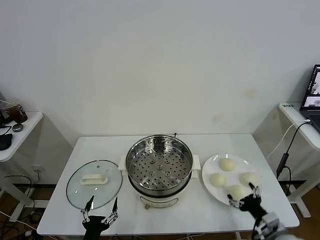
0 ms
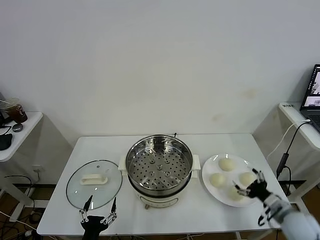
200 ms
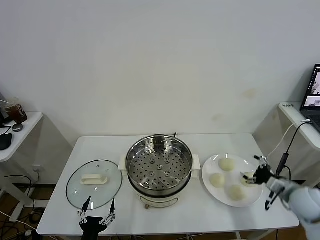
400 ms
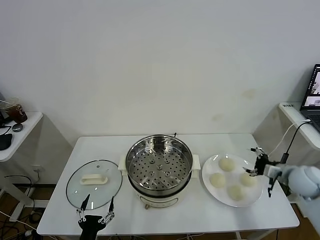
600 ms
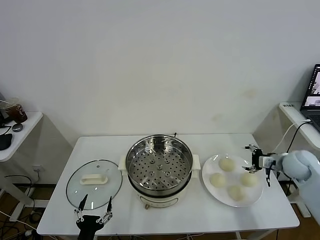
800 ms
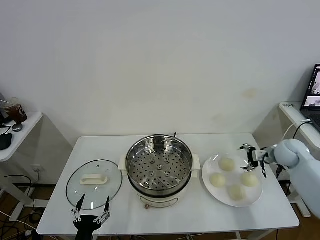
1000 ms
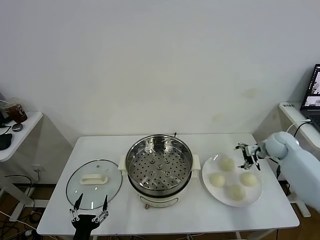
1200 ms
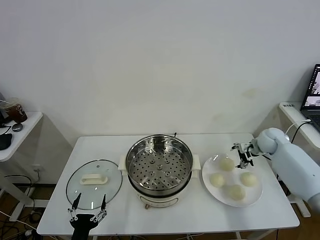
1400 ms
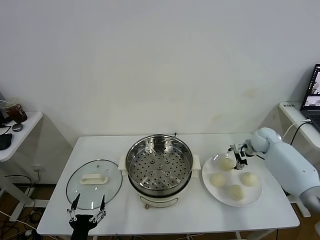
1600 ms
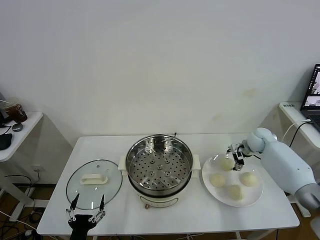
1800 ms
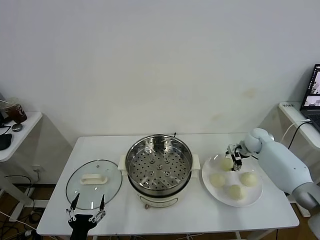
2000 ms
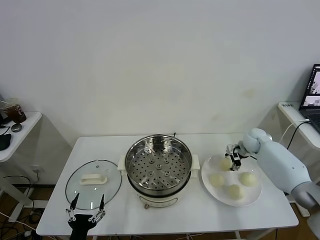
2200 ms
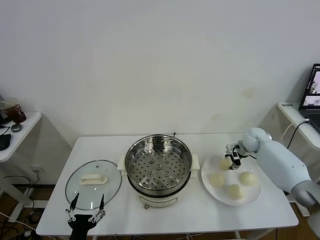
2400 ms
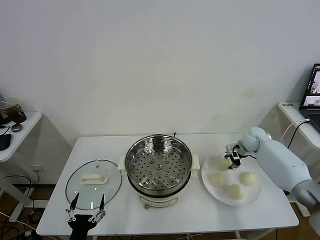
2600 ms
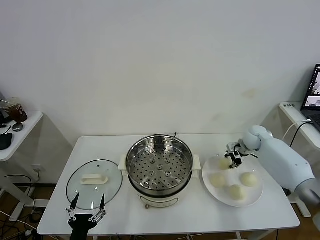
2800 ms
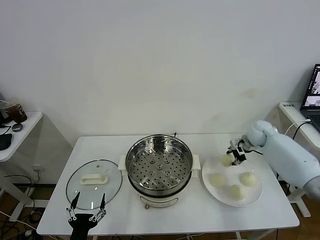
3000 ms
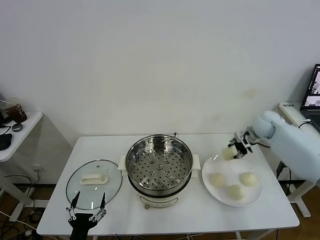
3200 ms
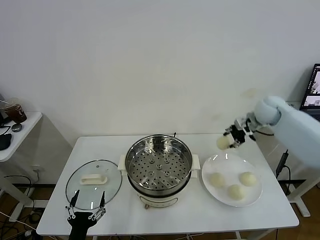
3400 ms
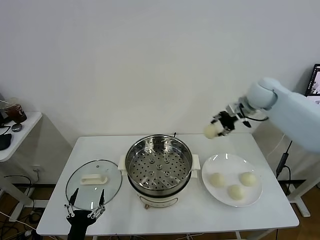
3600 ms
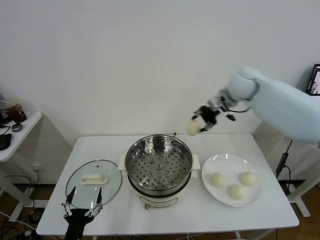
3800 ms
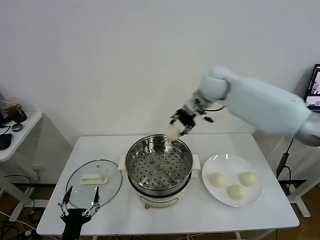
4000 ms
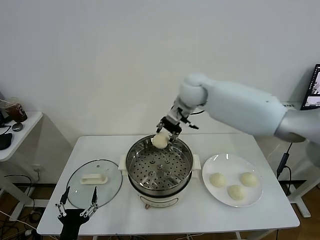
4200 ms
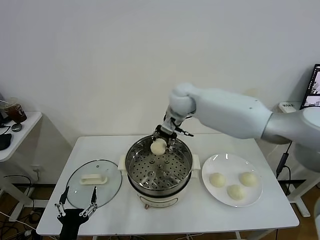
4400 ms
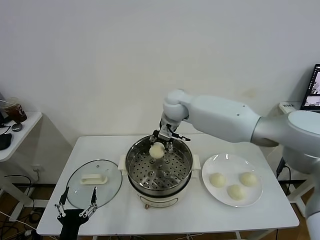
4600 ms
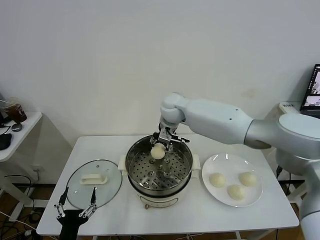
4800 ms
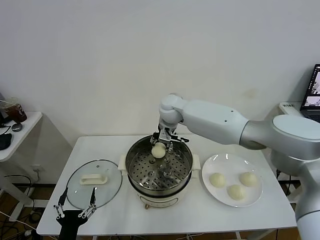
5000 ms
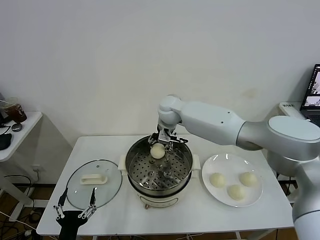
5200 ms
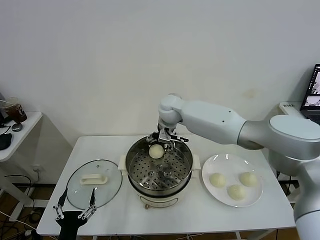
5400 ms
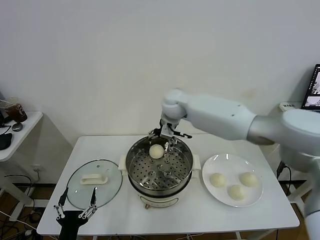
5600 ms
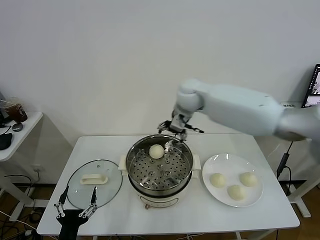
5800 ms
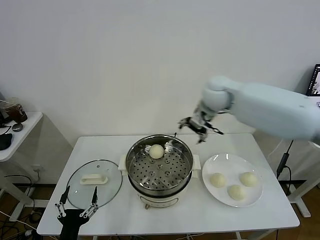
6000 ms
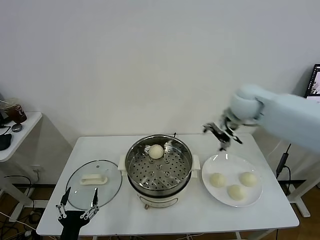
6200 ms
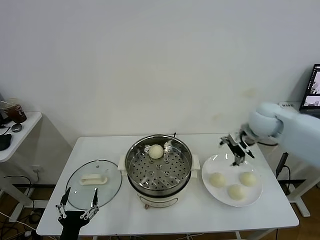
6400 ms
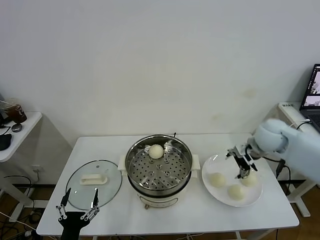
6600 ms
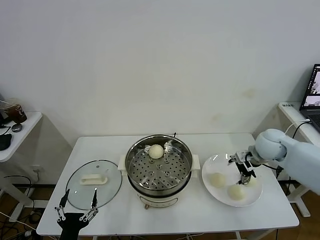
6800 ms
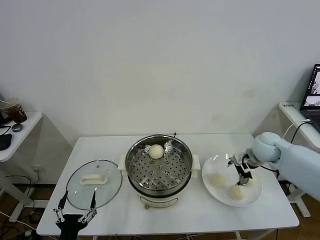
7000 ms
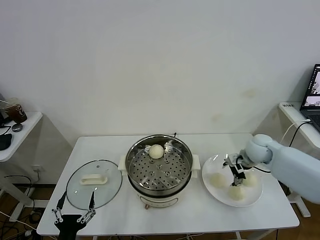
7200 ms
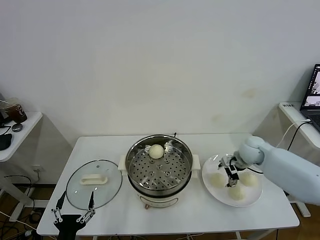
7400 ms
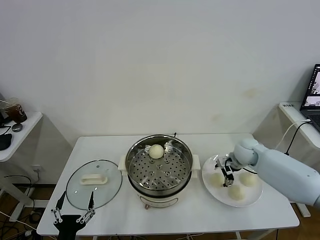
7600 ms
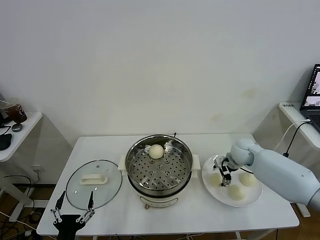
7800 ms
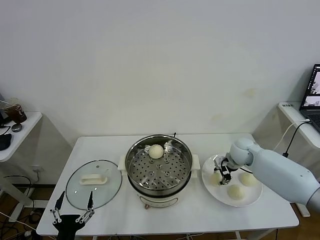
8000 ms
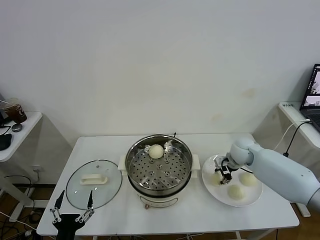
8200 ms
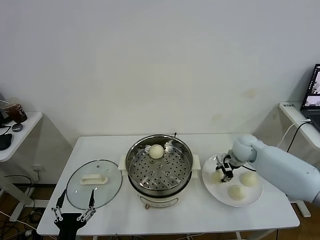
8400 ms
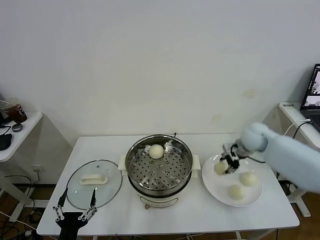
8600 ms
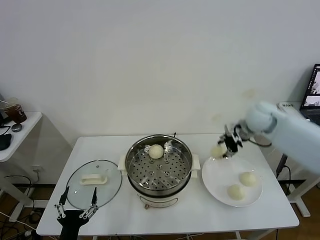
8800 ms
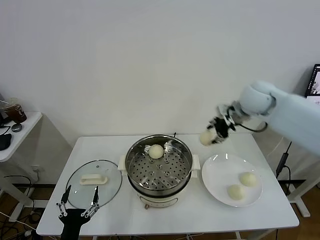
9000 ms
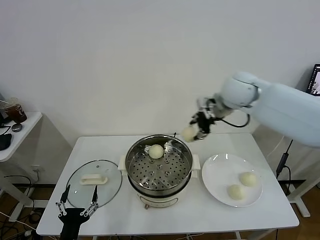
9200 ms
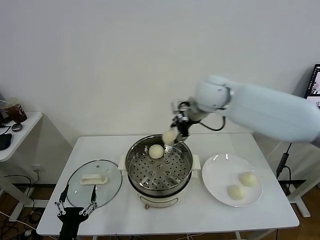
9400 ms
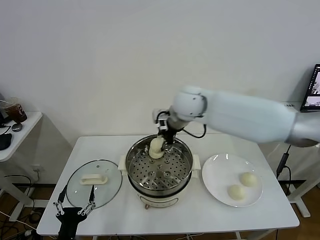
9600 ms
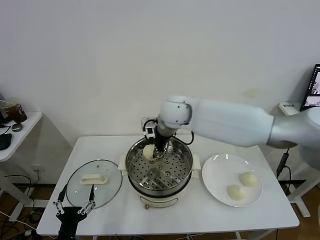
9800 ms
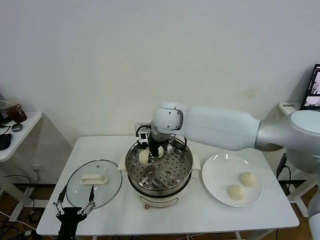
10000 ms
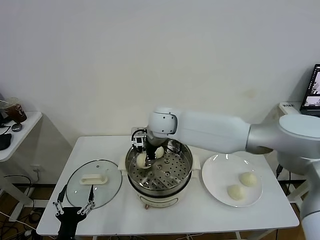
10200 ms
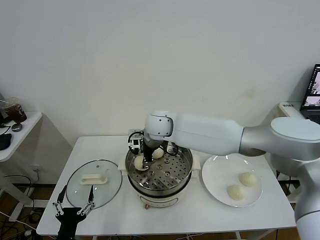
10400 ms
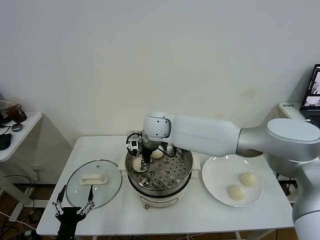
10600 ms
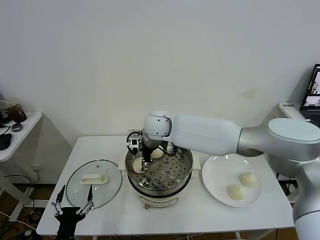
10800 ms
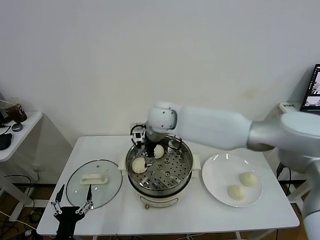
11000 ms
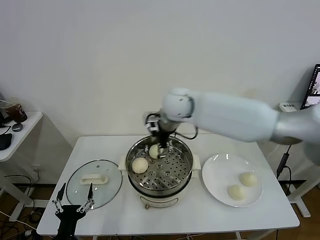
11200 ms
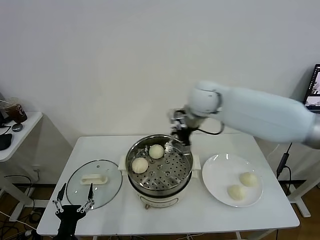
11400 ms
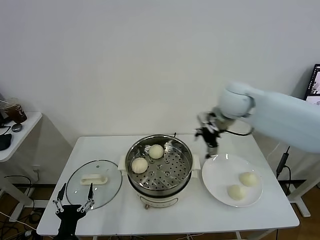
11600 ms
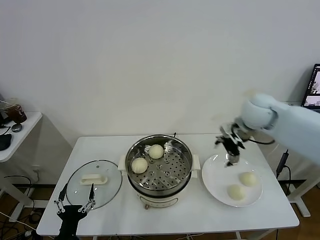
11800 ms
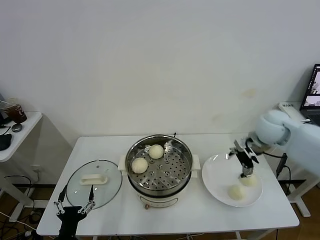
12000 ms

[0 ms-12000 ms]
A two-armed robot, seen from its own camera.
Task of the whole recording: take steamed baozi put them in steamer.
Step, 0 ms to 2400 ms: Grasp the baozi in the plate with right gripper.
Step, 2600 ms to 5600 ms: Place the baozi on the steamer with right gripper.
Step, 5800 ms to 8000 ms: Grasp the baozi in the plate with right gripper.
Step, 8200 ms to 11000 ms: Place the baozi on the steamer with right gripper.
1600 ms to 3000 ms: The right gripper heads upward, covering approximately 5 cm, and closes.
3000 ms to 4400 ms: The right gripper goes about 35 cm to the left.
4400 ms to 6000 ms: The right gripper heads to the right, covering about 15 cm, and opens up.
6000 ms to 7600 ms: The right gripper moves downward and to the right, approximately 25 cm.
7600 ms to 9000 ms: The right gripper is displaced upward by approximately 25 cm, and closes.
9000 ms to 10400 ms: The right gripper is displaced to the left and downward by approximately 30 cm.
10400 ms to 12000 ms: The right gripper heads to the right, covering about 35 cm, and opens.

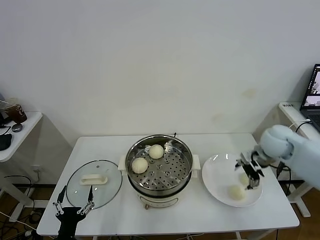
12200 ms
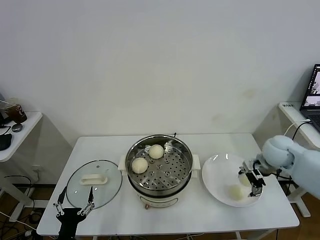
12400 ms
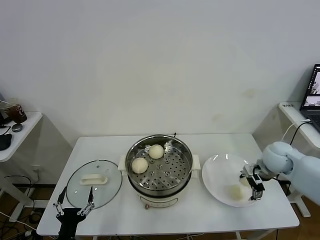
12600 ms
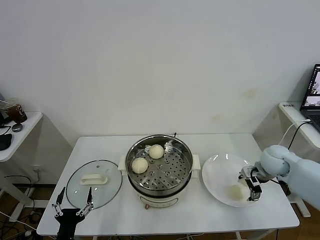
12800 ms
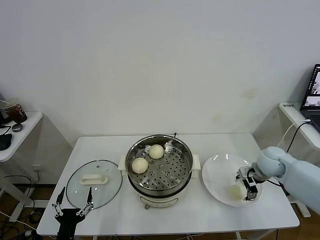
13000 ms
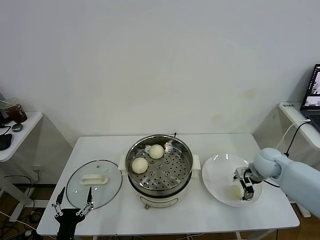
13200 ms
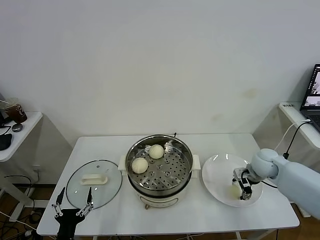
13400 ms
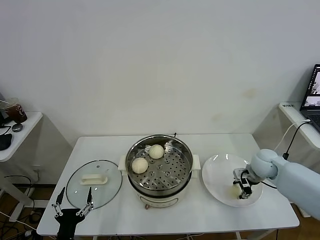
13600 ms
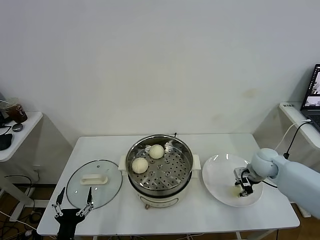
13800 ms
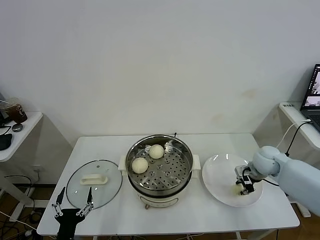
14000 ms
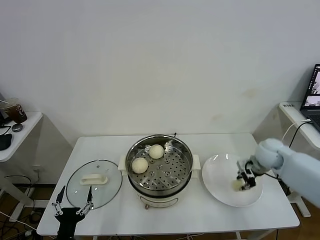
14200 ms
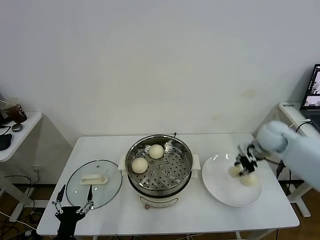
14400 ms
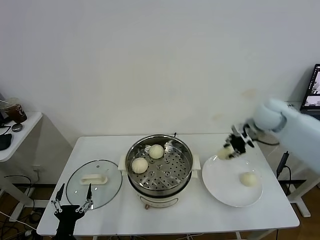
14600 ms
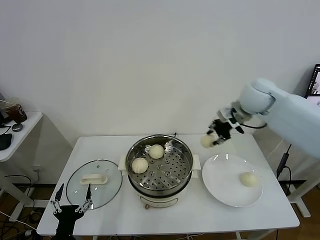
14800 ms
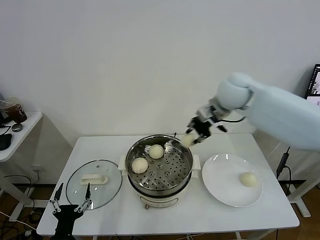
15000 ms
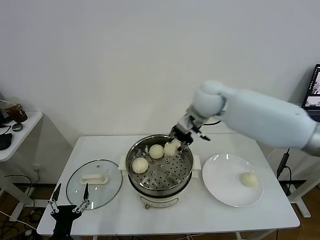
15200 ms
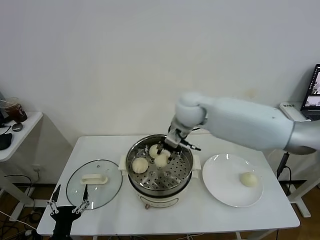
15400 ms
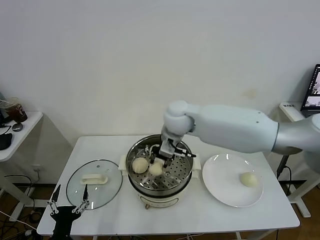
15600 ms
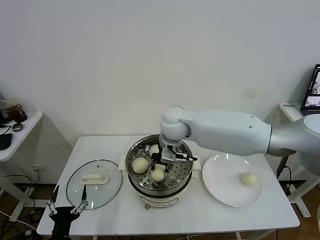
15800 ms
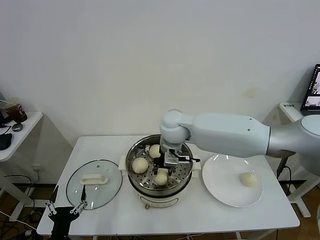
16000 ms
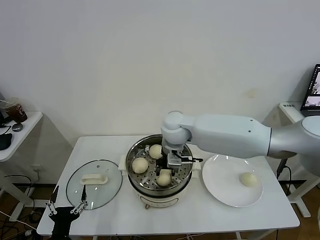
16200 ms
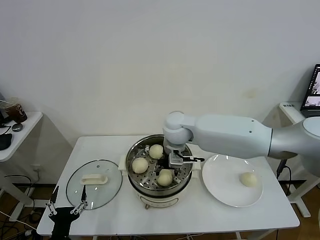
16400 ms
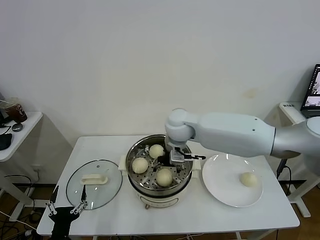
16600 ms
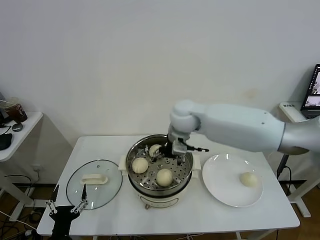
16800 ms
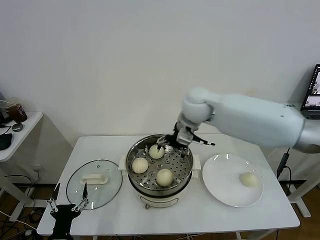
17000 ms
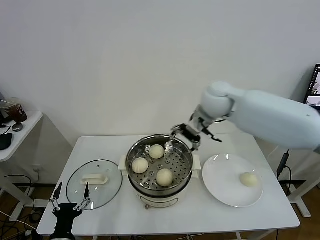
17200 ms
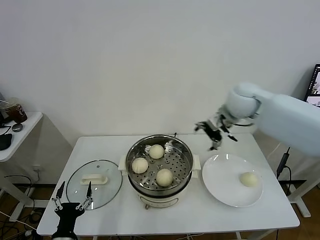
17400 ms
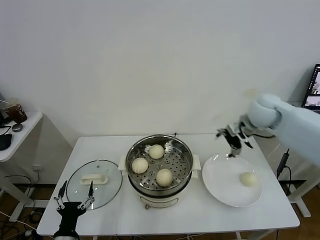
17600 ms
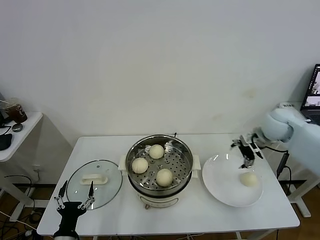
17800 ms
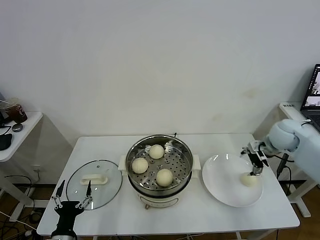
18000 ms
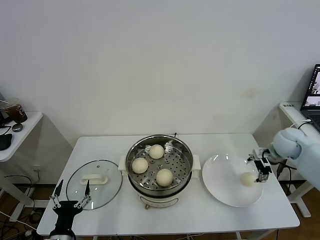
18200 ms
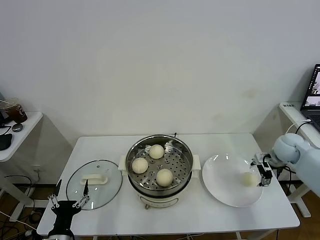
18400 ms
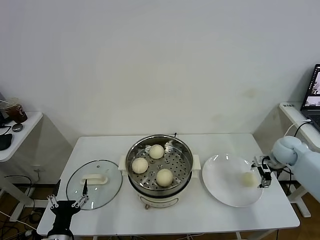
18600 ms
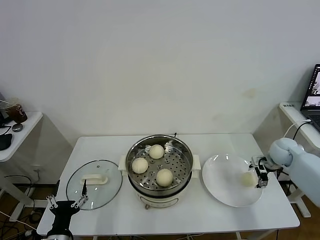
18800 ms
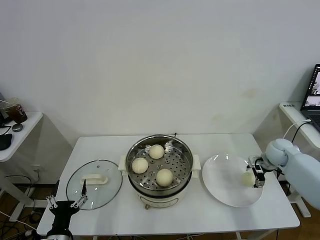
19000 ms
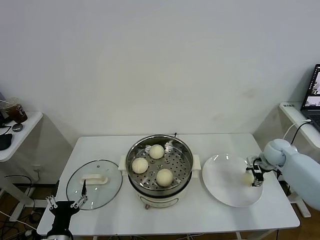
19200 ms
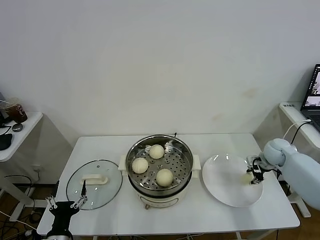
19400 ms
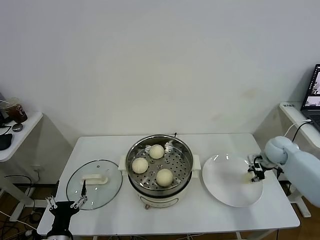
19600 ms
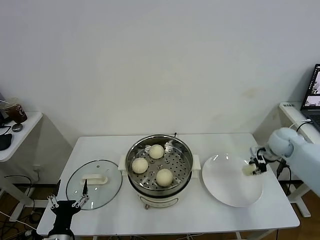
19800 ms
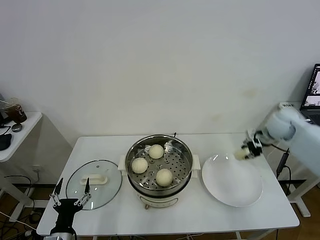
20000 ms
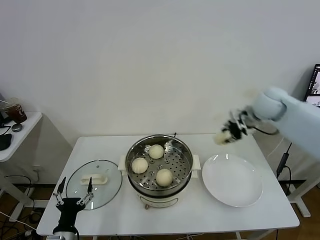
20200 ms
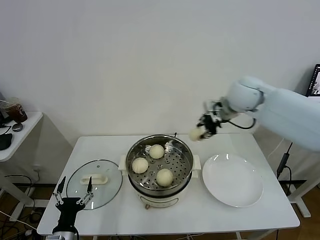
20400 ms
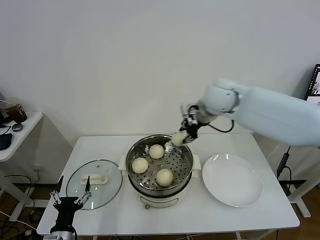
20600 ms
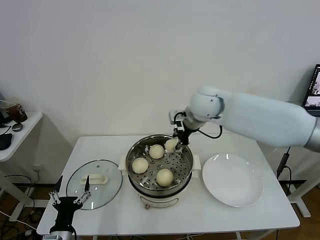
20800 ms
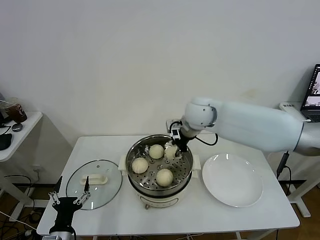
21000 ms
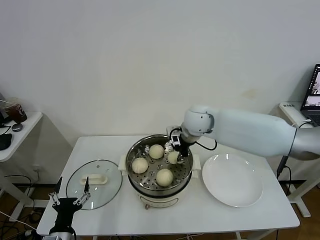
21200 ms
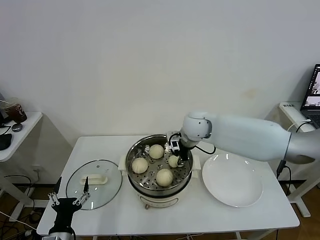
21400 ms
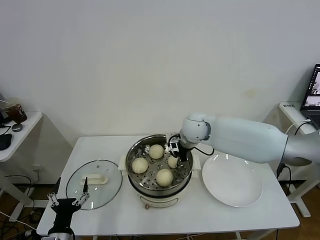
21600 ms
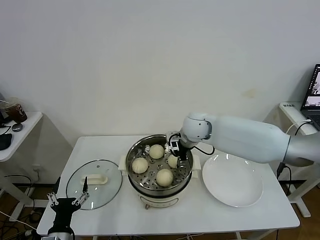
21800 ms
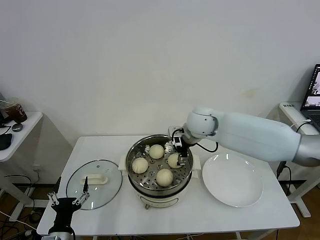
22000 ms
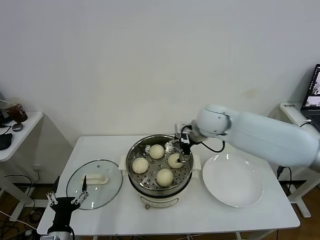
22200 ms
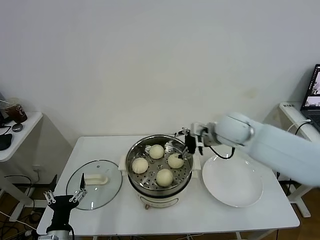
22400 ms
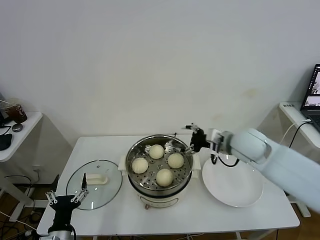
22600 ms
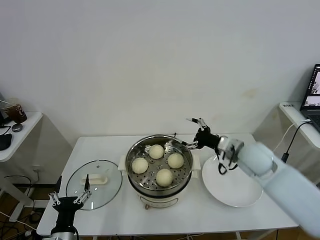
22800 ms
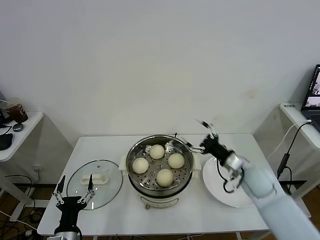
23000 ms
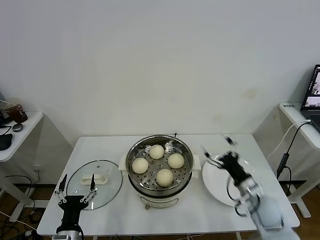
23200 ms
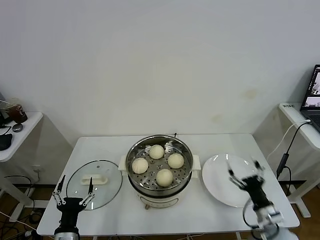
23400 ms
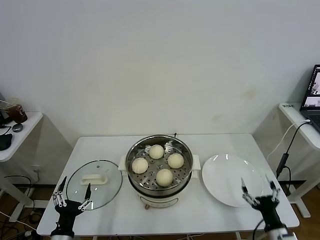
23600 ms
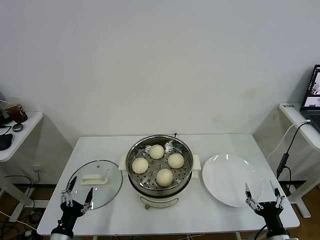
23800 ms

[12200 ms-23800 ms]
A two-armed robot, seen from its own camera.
Task of the whole recording: take steamed baozi put them in steamer.
Step, 12200 ms to 13600 ms: Grasp the baozi in the plate with right gripper.
Step, 14000 ms to 16800 ms: Place the baozi on the steamer with right gripper.
Step, 17000 ms to 19400 ms: Grasp the baozi in the plate with right gripper.
Step, 19600 ms to 22200 ms: Place the baozi on the steamer with right gripper.
12200 ms to 13600 ms: The right gripper shifts roughly 10 cm downward, and closes.
13600 ms to 15000 ms: The right gripper is displaced upward and to the left by about 30 cm.
15000 ms to 16600 ms: The right gripper is displaced to the left and downward by roughly 15 cm, and opens up.
16600 ms to 18000 ms: The right gripper goes approximately 35 cm to the right.
18000 ms to 19400 ms: The right gripper shifts approximately 10 cm downward, and closes its fingers.
19400 ms to 21000 ms: The right gripper travels to the left and upward by roughly 35 cm.
21000 ms to 22400 ms: The right gripper moves to the right and backward, about 10 cm, and opens.
22400 ms to 23800 ms: The right gripper shifts approximately 50 cm backward, downward and to the right.
